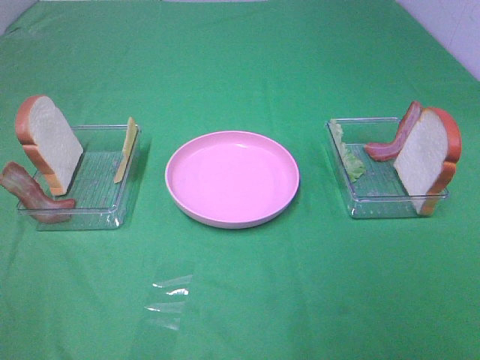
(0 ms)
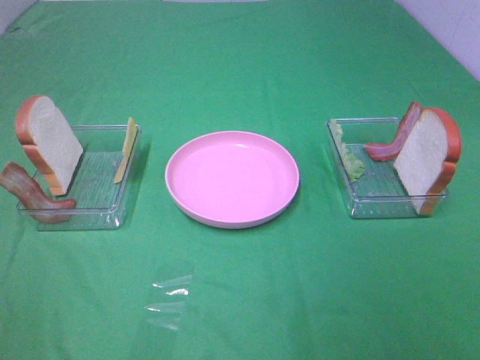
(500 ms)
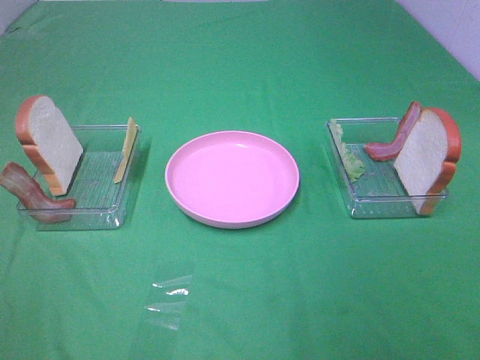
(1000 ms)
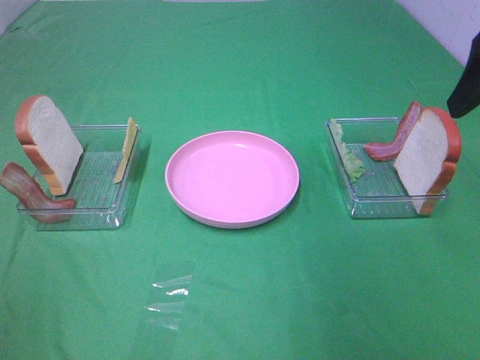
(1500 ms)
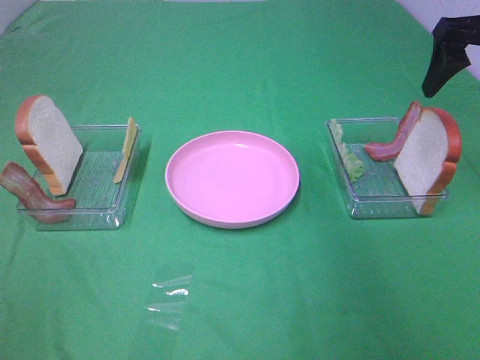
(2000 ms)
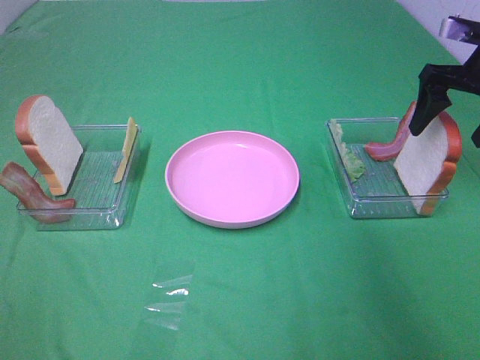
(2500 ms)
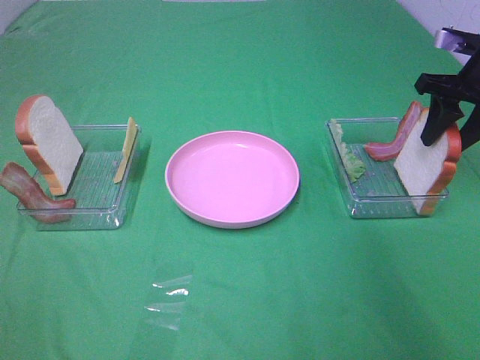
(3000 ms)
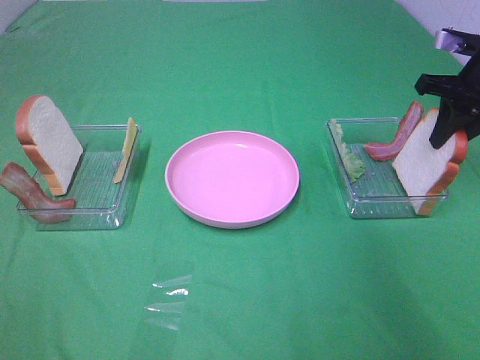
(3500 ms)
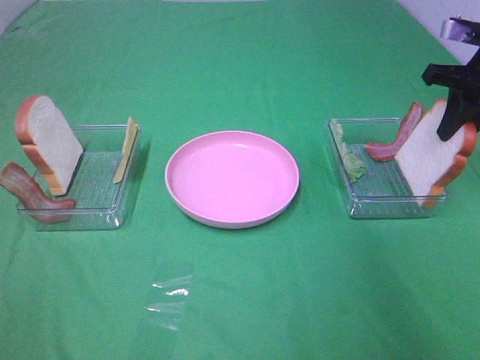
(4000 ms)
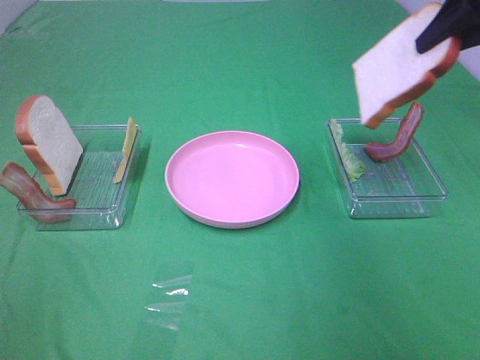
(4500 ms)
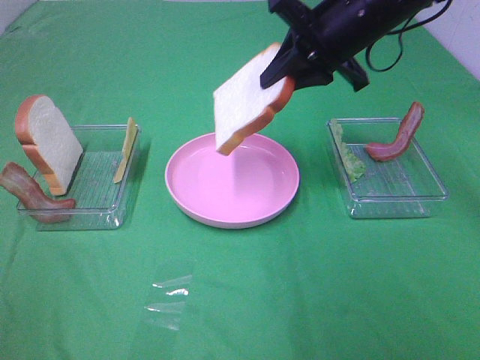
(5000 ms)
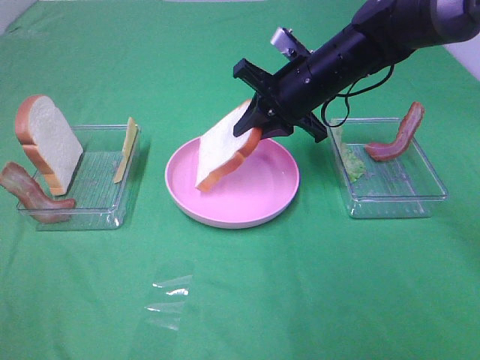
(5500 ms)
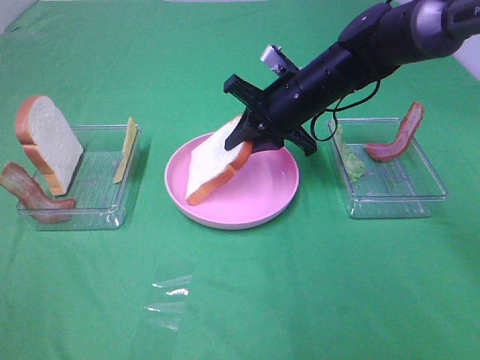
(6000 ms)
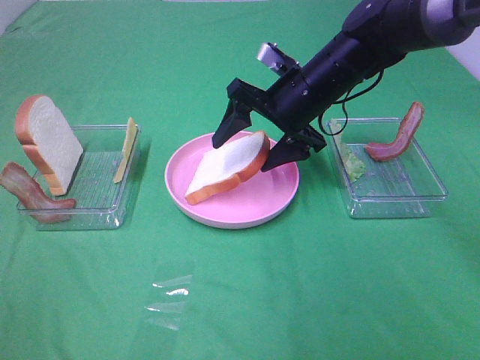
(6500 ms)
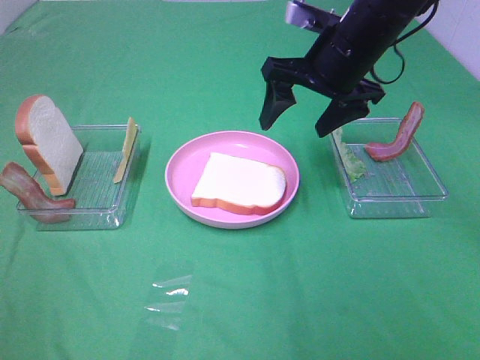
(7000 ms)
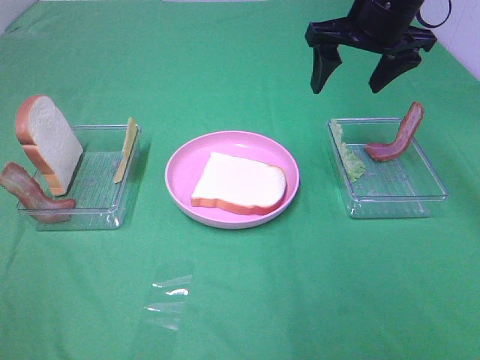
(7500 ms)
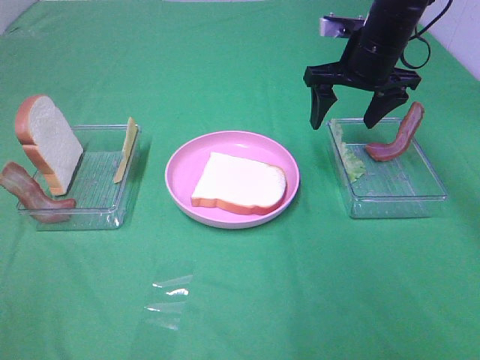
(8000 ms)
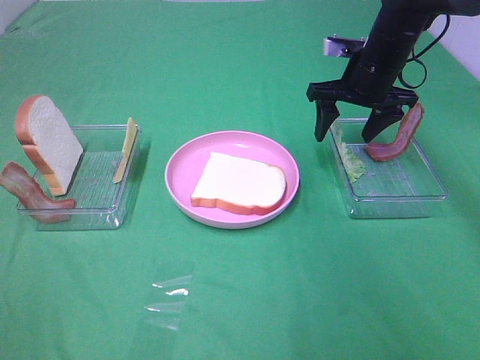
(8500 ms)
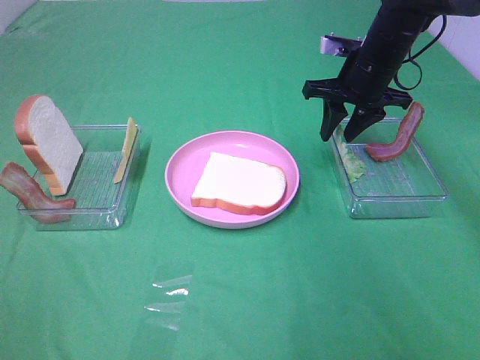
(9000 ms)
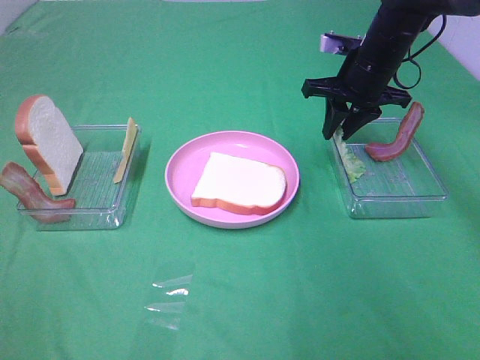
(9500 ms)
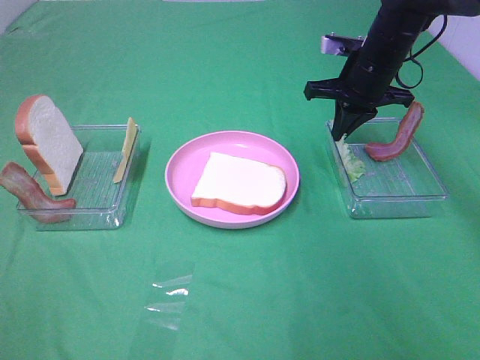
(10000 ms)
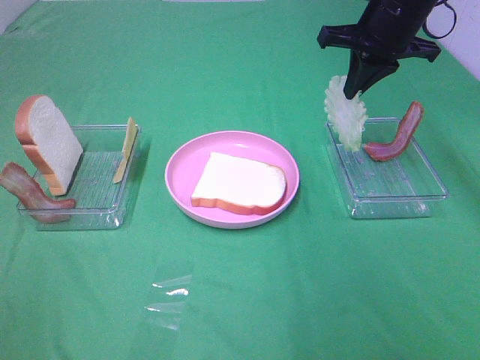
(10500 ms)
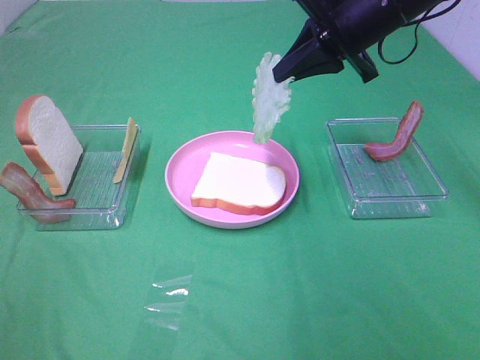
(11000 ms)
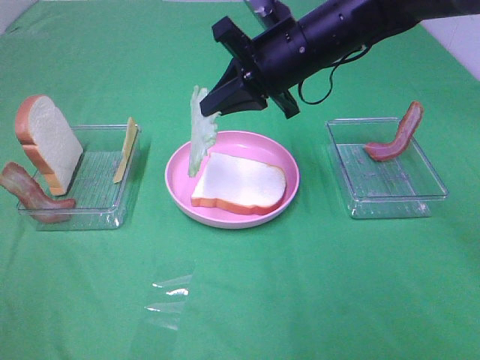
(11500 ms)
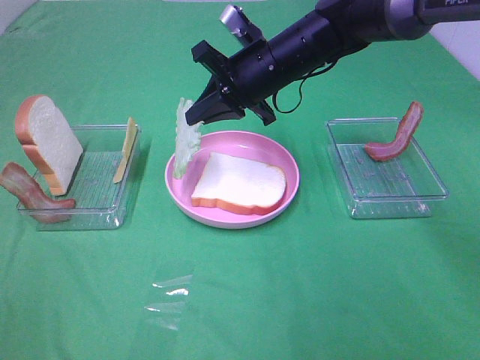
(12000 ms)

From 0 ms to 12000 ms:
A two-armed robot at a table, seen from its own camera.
Task of the whole recording: Make sandwiches.
Step, from 0 ms to 3500 ms: Right hand:grab the bread slice.
Step, from 4000 ms to 6500 ms: Right hand:place the bread slice on the plate.
Step, from 7000 ms to 9500 ms: Right hand:grab the lettuce slice.
From 0 ms to 2000 ms: The right gripper moves forward, about 35 cm.
From 2000 ms to 4000 ms: The right gripper travels downward by roughly 5 cm, and closes up.
From 4000 ms to 6000 ms: The right gripper is displaced to the left by some 25 cm.
From 6000 ms to 8000 ms: The right gripper travels to the right and upward by about 10 cm, and opens up.
From 8000 ms to 10000 ms: The right gripper closes its fingers.
From 10000 ms to 12000 ms: The right gripper travels to the left by approximately 15 cm.

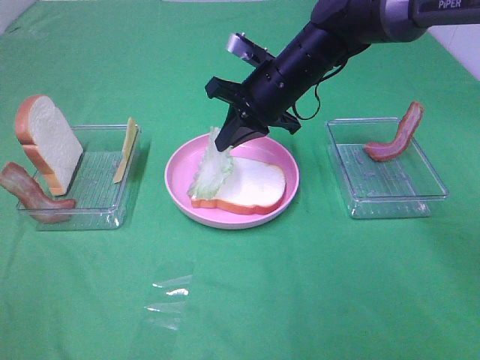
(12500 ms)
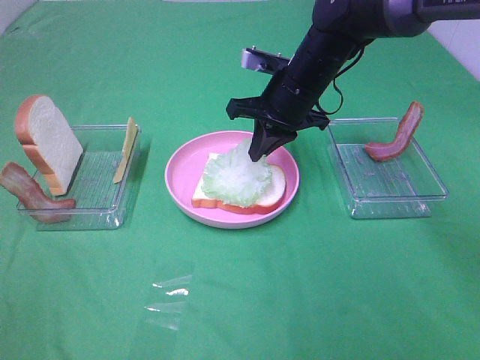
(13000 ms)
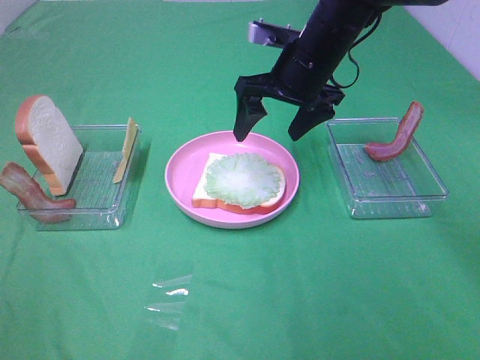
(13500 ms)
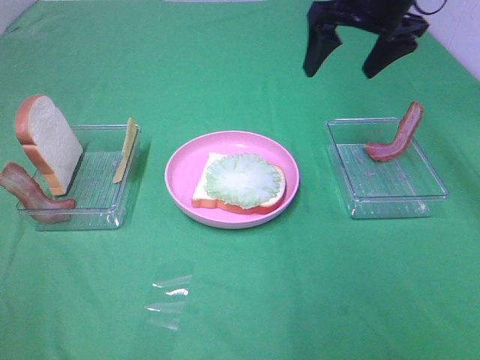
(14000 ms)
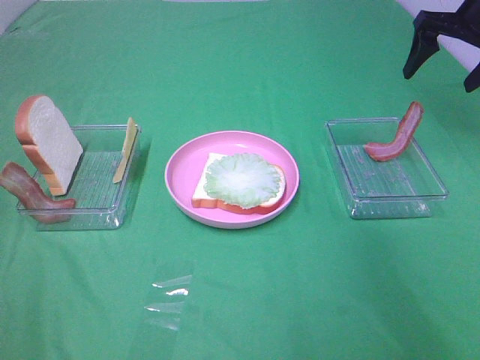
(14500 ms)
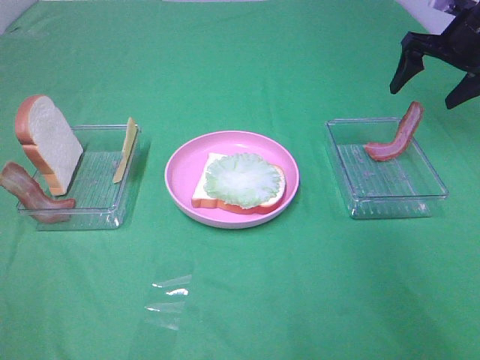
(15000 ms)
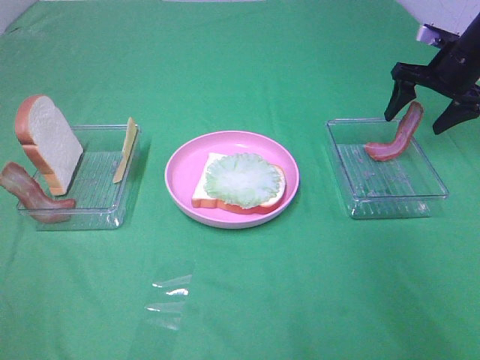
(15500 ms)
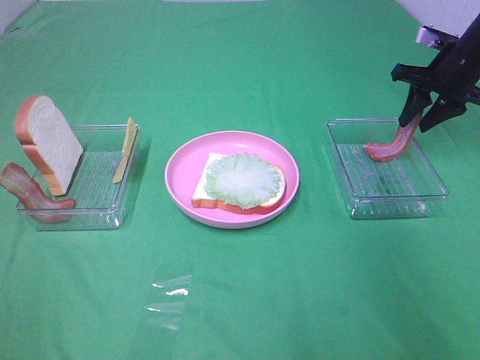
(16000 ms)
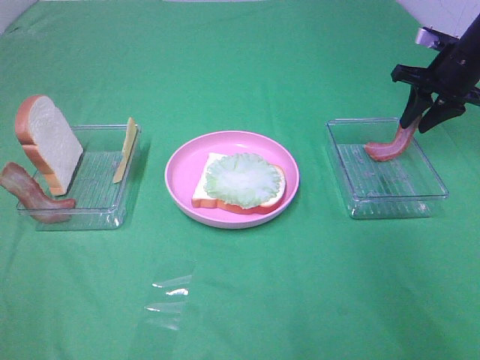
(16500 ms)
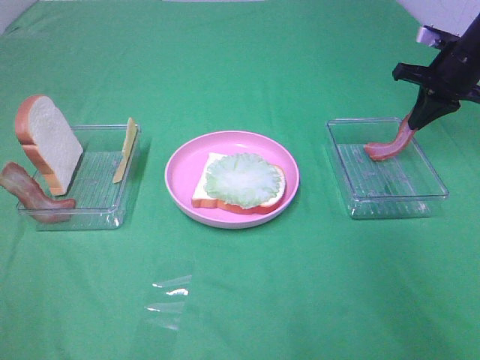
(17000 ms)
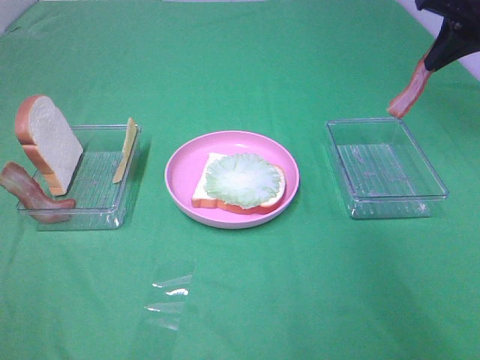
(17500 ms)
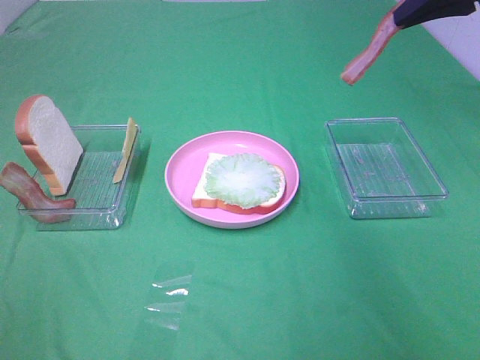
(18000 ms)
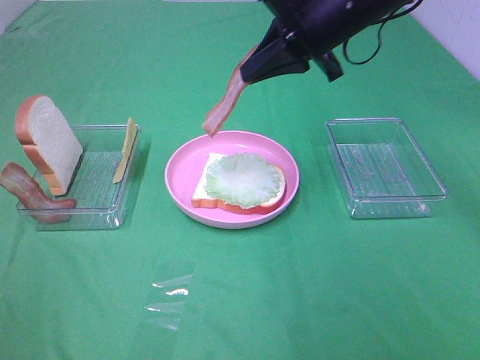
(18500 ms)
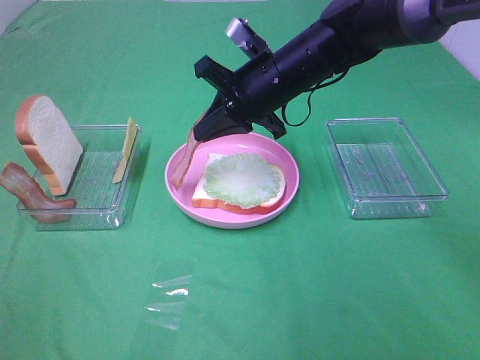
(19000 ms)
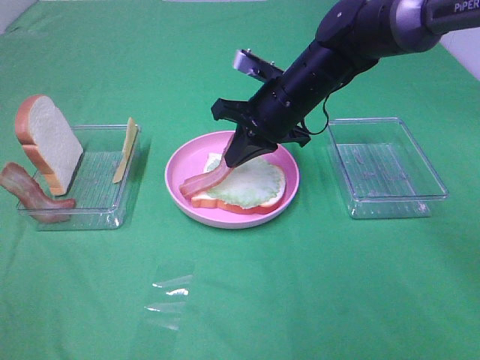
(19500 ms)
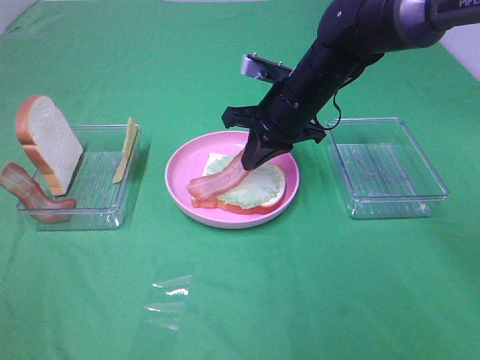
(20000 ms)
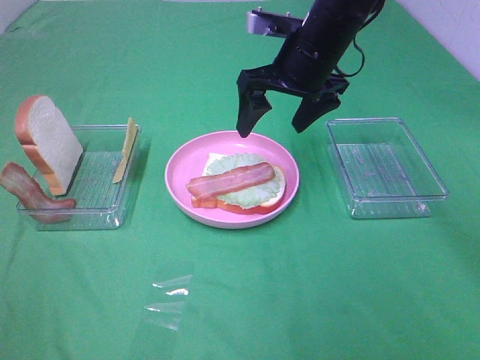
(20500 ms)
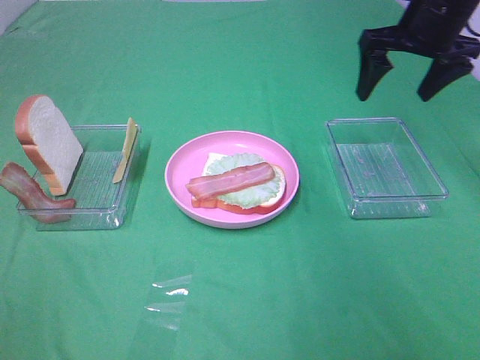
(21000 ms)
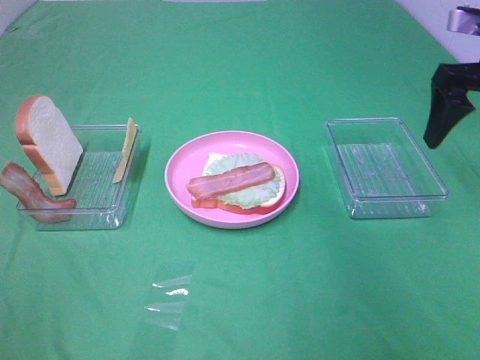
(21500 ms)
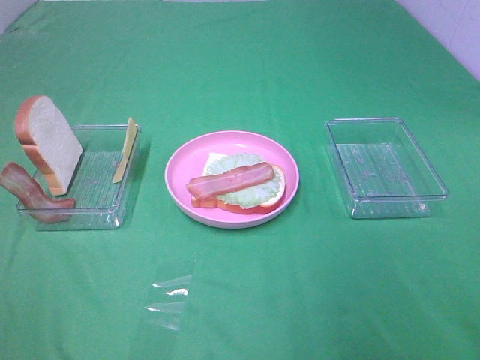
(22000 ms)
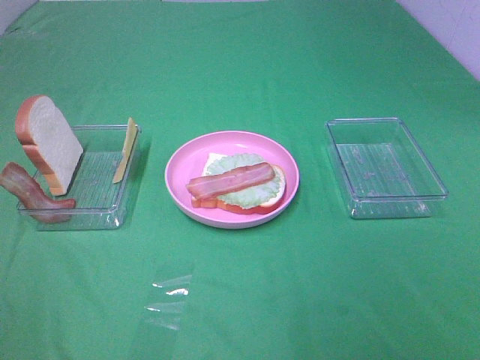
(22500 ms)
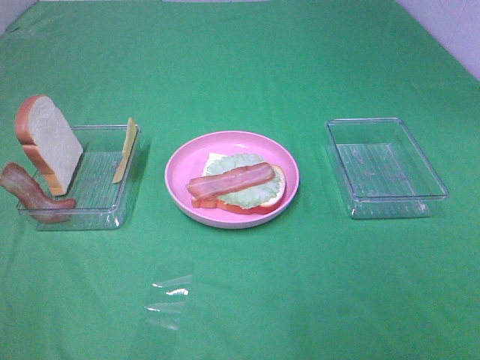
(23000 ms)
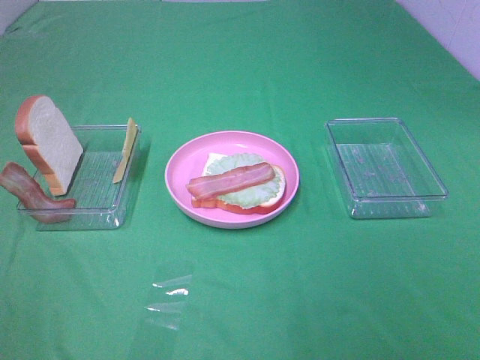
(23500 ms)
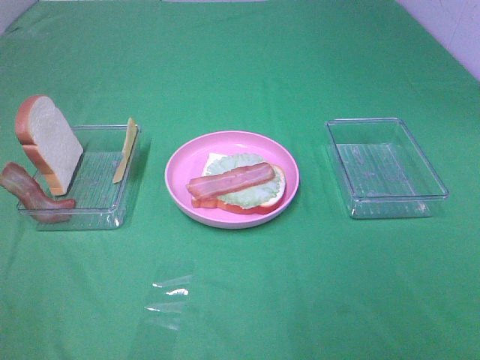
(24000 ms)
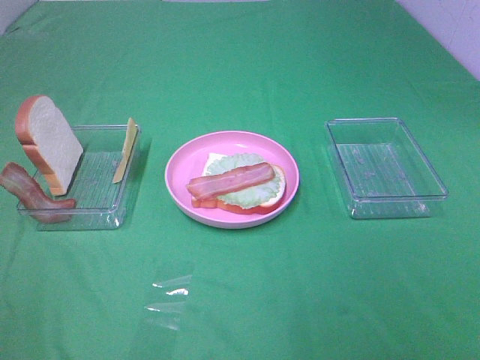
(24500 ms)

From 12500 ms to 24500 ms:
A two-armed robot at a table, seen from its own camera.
Task of the whole recording: Make sandwiches.
Step, from 13500 ms to 16500 ms: Right hand:grab the bacon.
Step, from 17000 ms to 20000 ms: Right hand:place bacon on lettuce slice.
From 12500 ms to 14500 ms: The right gripper moves to the right, some 25 cm, and opens its fingers.
From 14500 ms to 16500 ms: The right gripper heads downward, covering some 10 cm, and closes its fingers.
From 16500 ms to 18500 ms: The right gripper shifts about 25 cm to the left and upward.
From 18500 ms to 20500 ms: The right gripper goes downward and returns, roughly 10 cm each way, and opens up.
From 20500 ms to 22500 ms: The right gripper travels backward and to the right by roughly 40 cm.

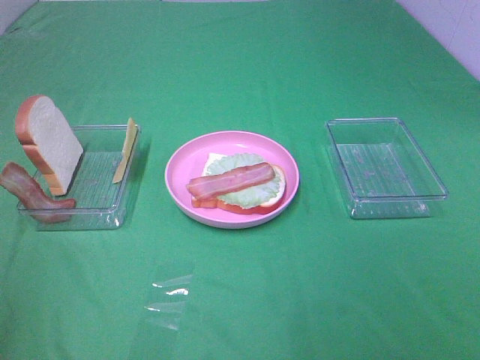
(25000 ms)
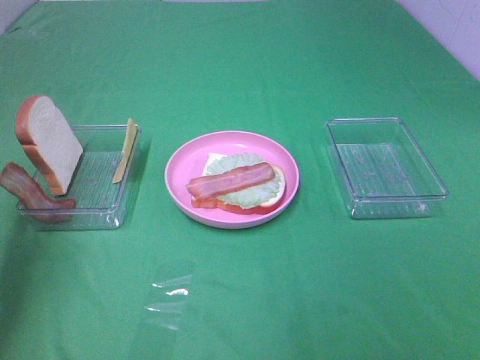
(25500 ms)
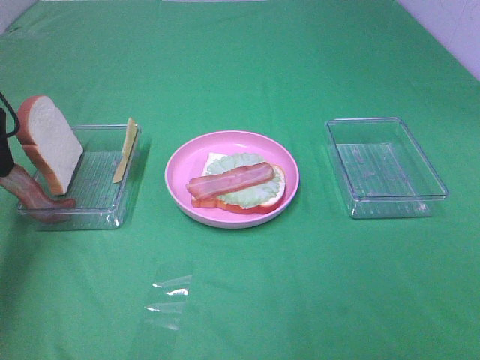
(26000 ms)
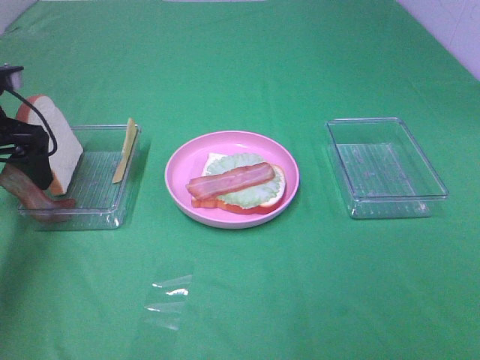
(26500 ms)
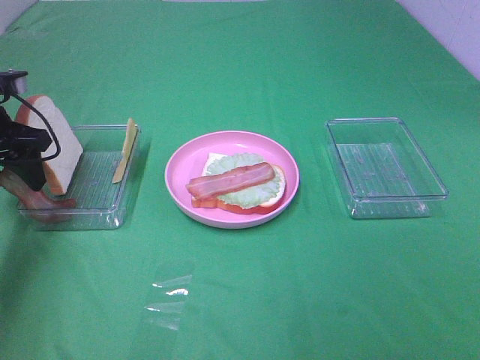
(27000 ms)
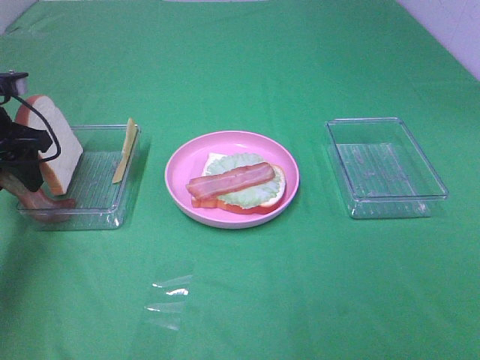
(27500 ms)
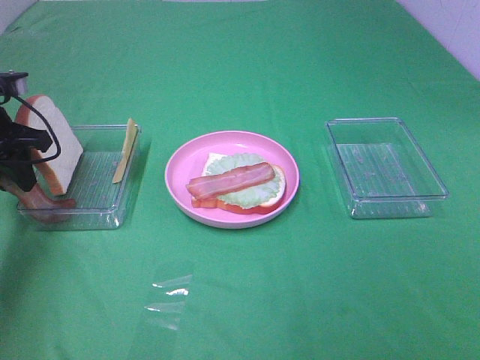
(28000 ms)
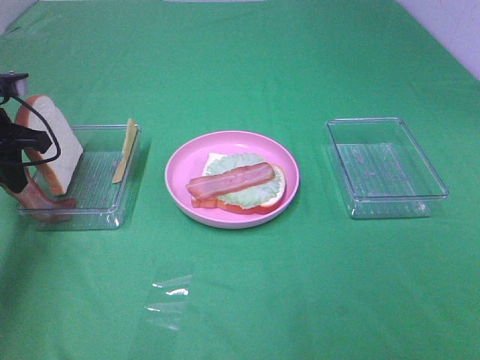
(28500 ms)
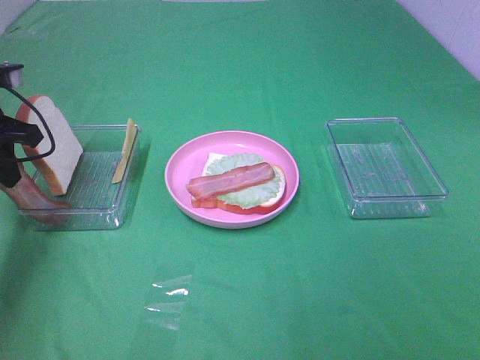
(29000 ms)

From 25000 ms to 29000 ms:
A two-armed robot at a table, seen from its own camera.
Task of the whole recording: Make sandwiches.
Step, from 25000 ms to 28000 ms: Left hand:grab the bacon.
From 25000 ms to 27000 ms: The left gripper shifts some 35 cm forward and downward.
From 27000 ms to 29000 ms: The left gripper closes its fingers.
